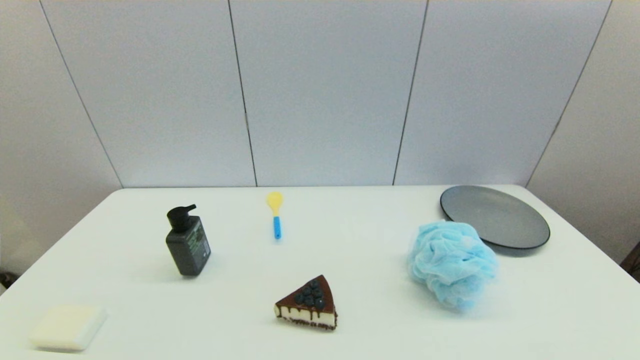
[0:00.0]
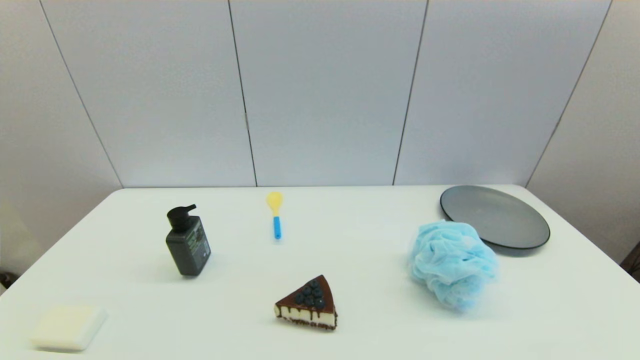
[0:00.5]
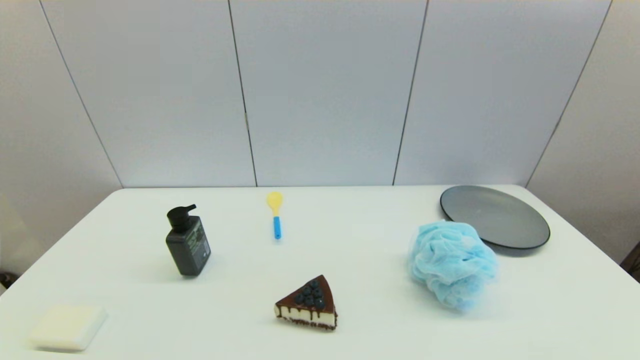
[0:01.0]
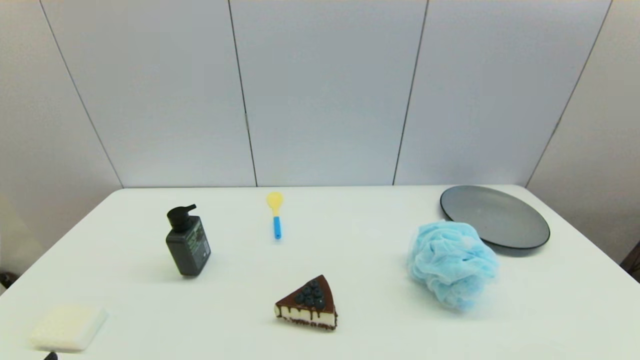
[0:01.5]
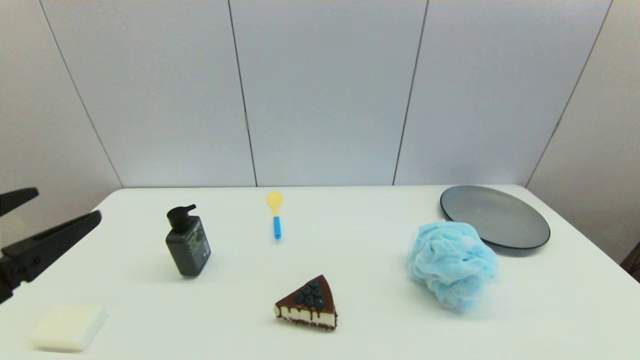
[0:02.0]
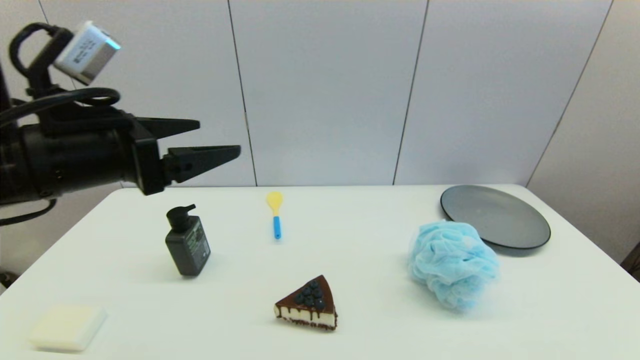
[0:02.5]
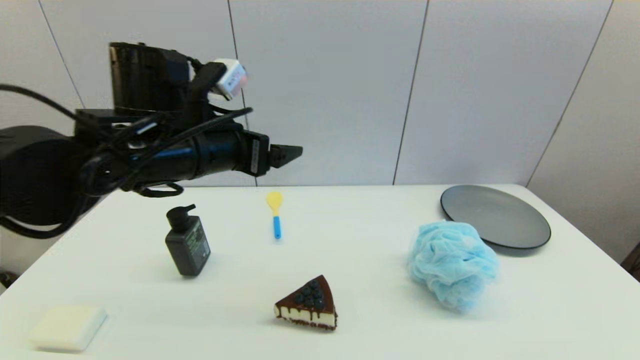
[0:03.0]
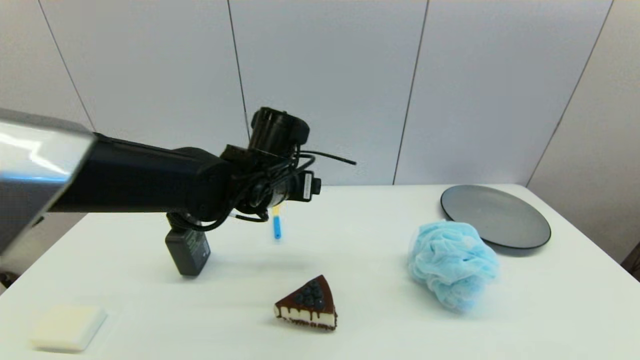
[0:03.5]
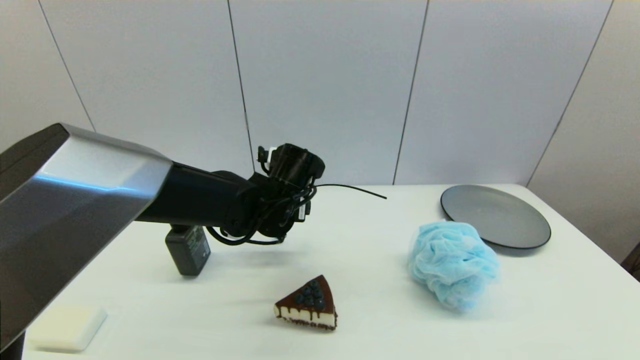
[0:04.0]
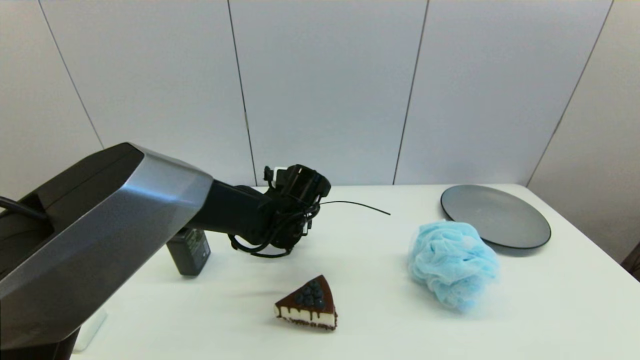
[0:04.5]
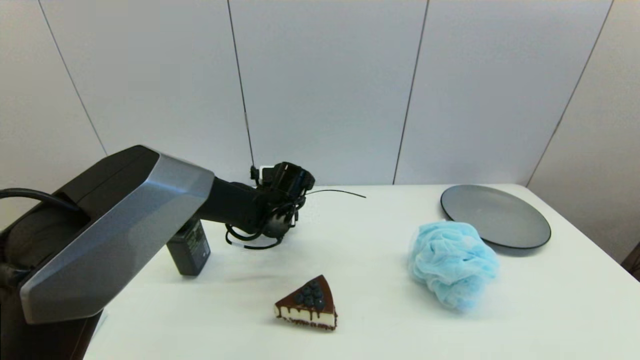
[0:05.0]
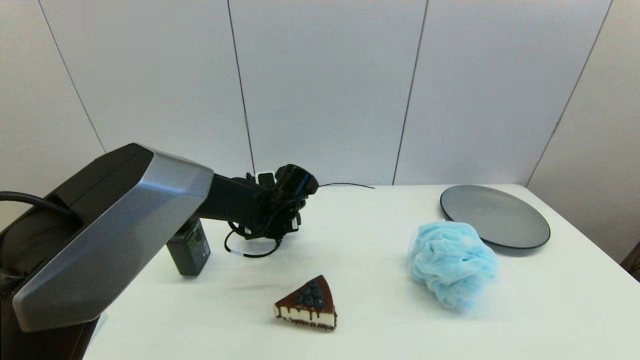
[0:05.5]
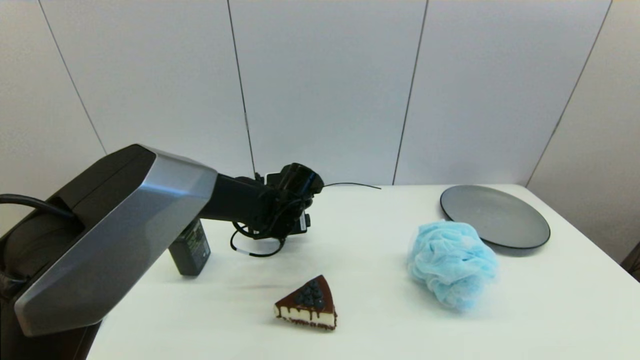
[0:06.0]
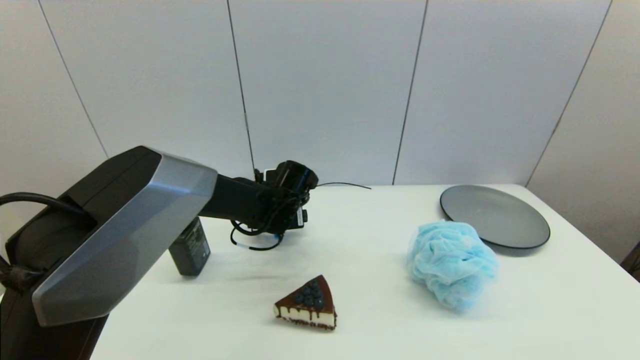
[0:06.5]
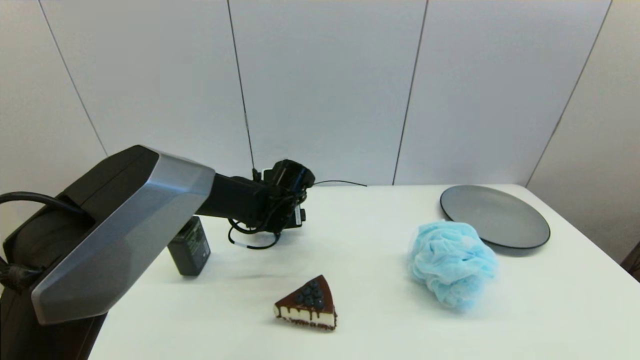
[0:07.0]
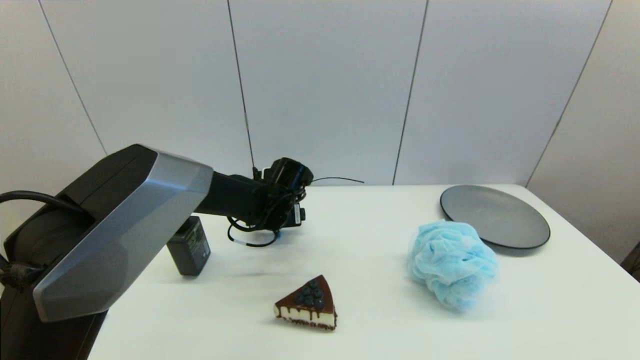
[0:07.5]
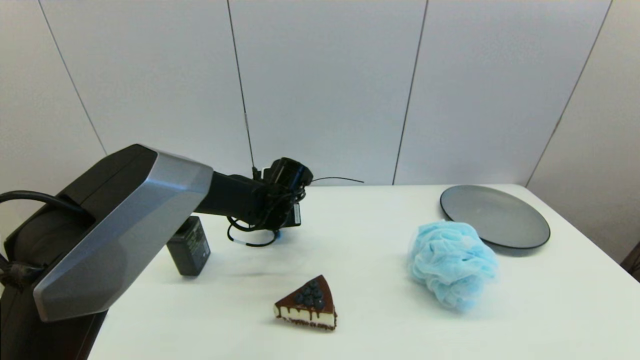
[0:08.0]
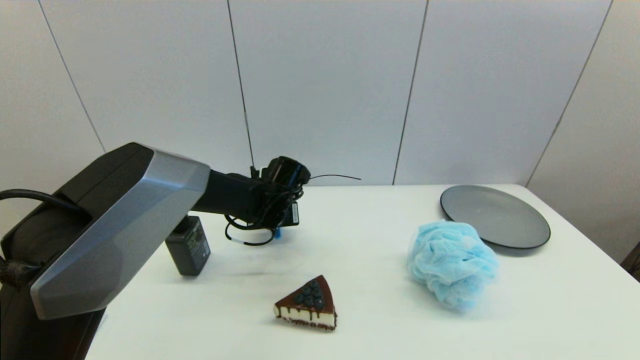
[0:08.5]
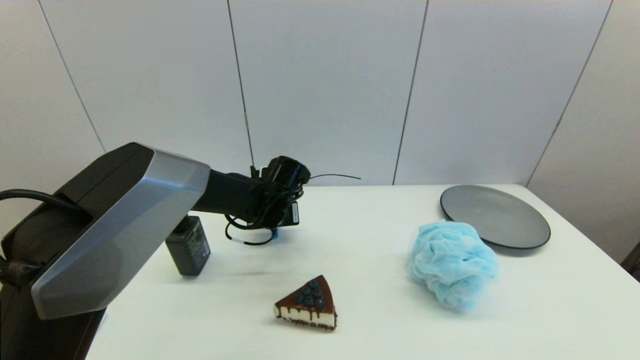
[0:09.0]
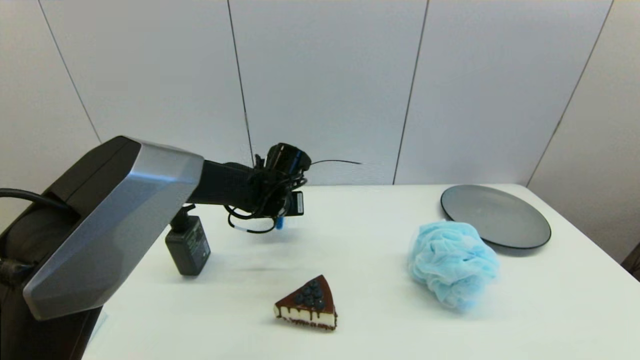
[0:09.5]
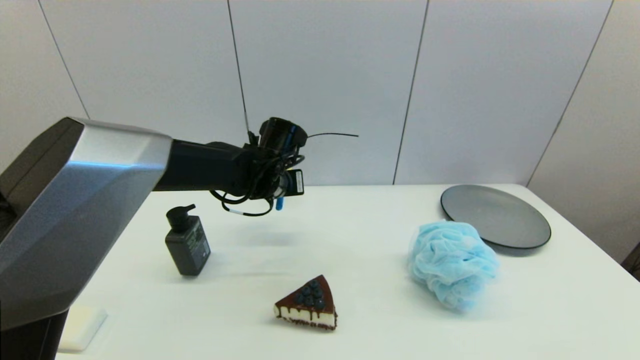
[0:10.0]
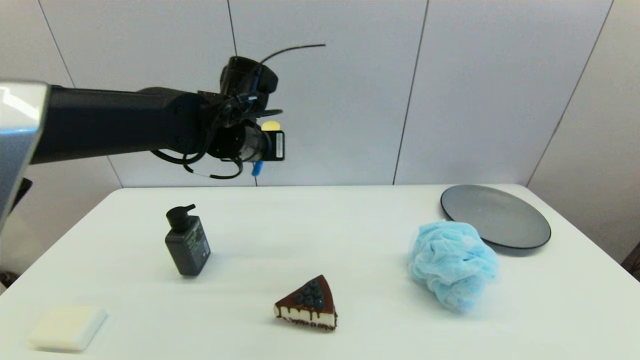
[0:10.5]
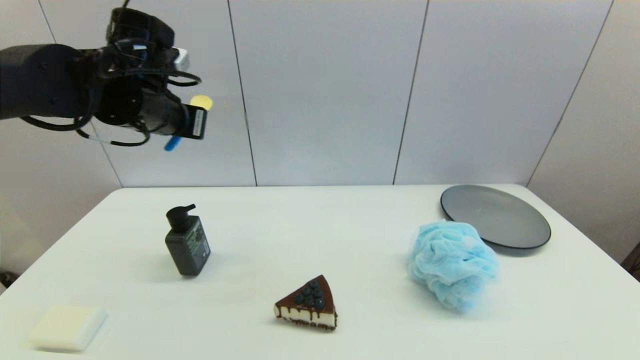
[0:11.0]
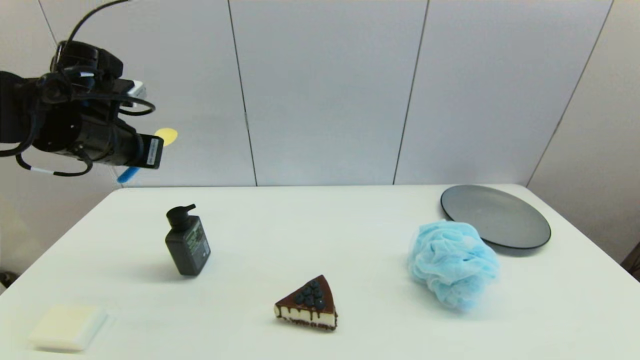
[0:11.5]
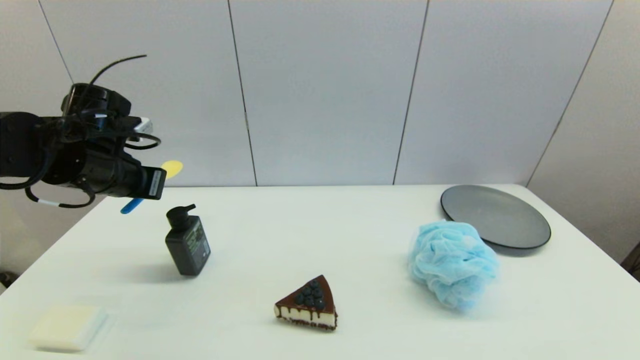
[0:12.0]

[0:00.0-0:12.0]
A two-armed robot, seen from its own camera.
Step, 0:01.5 to 0:08.5: Grasp the spoon with left gripper.
0:00.0 to 0:02.0: The left gripper shifts about 20 cm upward and forward.
0:02.0 to 0:04.0: The left gripper is displaced to the right, forward and downward by about 35 cm.
0:04.0 to 0:06.0: The left gripper is displaced downward by roughly 5 cm.
0:06.0 to 0:08.0: The left gripper closes.
0:08.0 to 0:10.0: The left gripper heads upward, covering about 10 cm, and closes.
0:10.0 to 0:12.0: The left gripper moves to the left, roughly 20 cm.

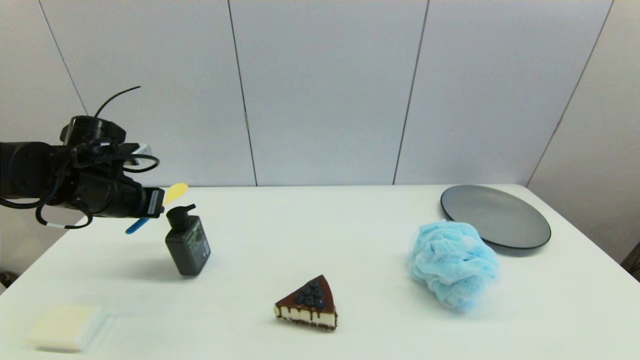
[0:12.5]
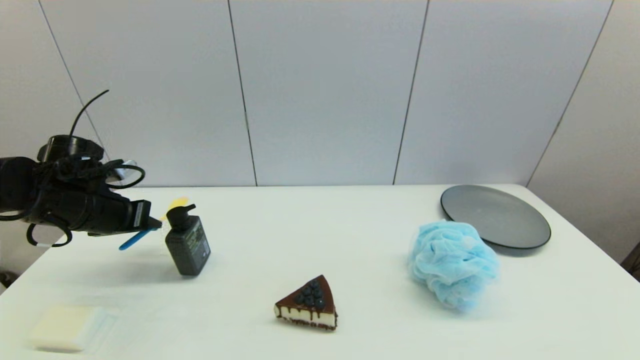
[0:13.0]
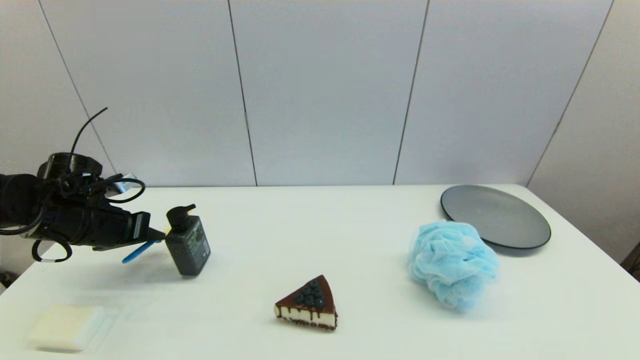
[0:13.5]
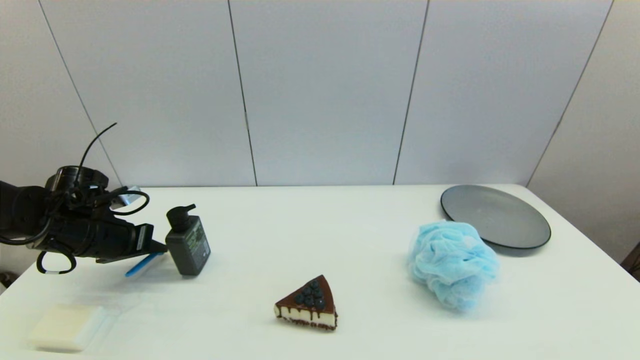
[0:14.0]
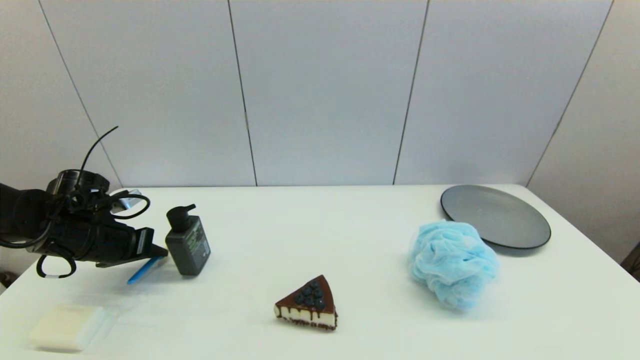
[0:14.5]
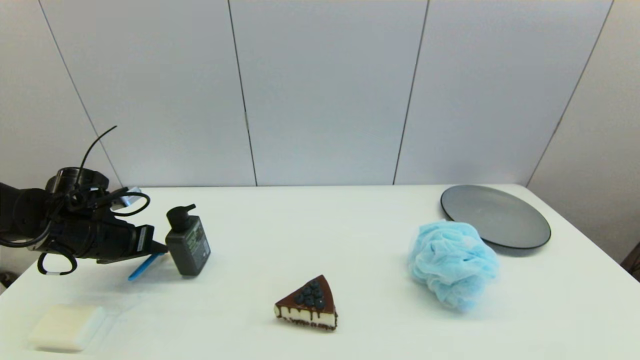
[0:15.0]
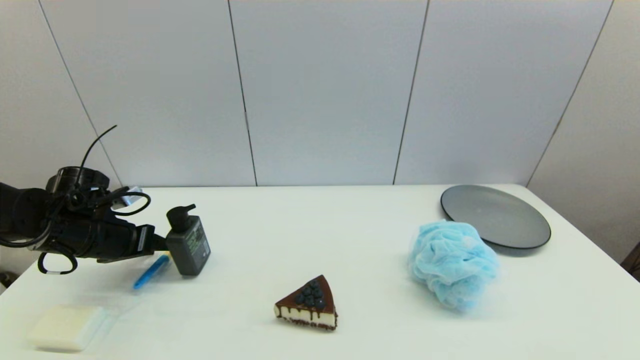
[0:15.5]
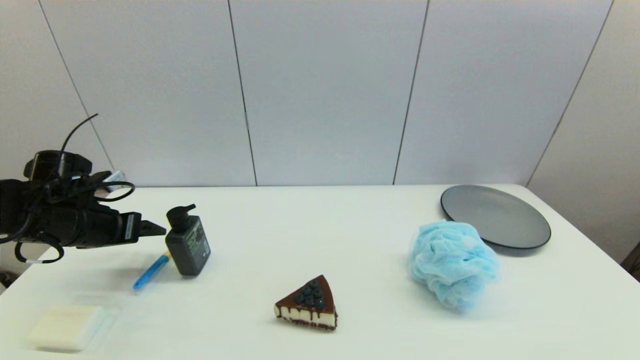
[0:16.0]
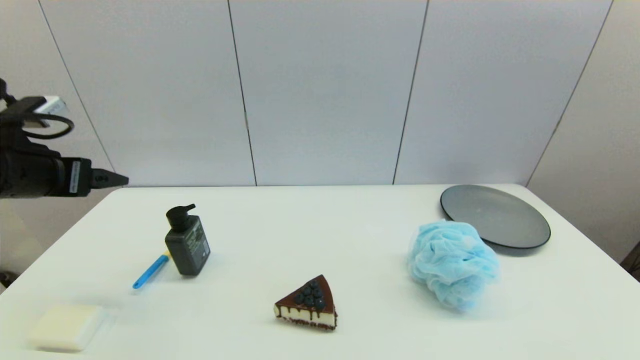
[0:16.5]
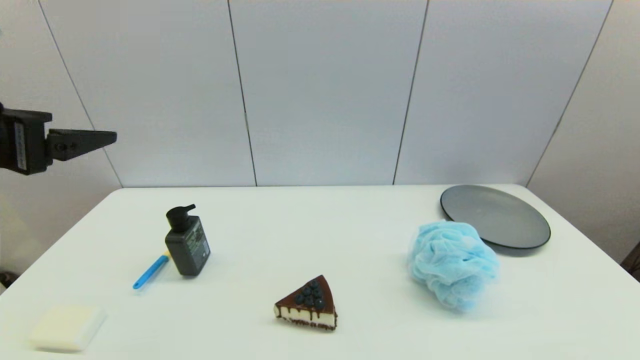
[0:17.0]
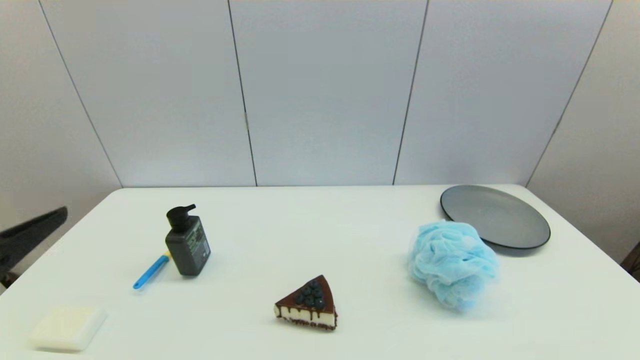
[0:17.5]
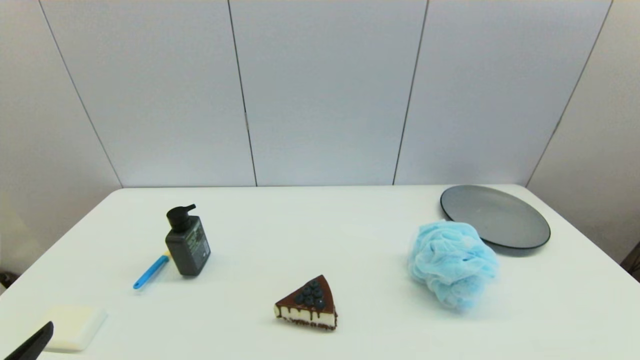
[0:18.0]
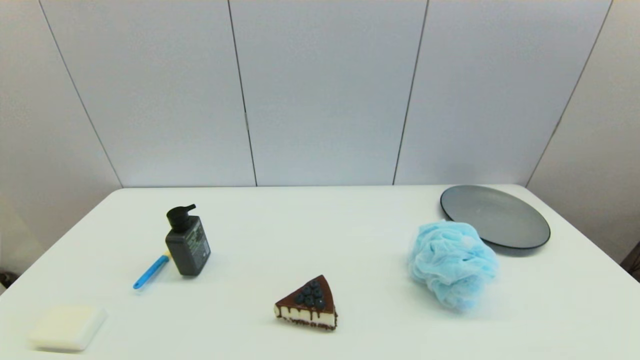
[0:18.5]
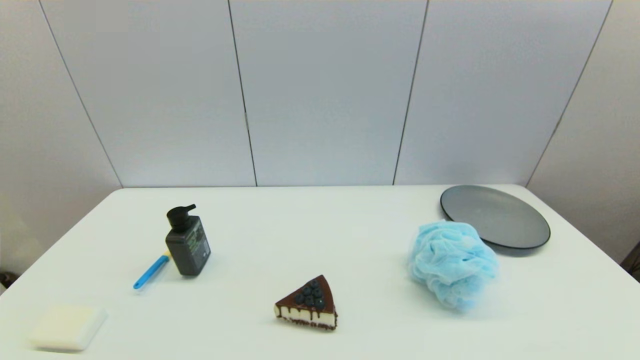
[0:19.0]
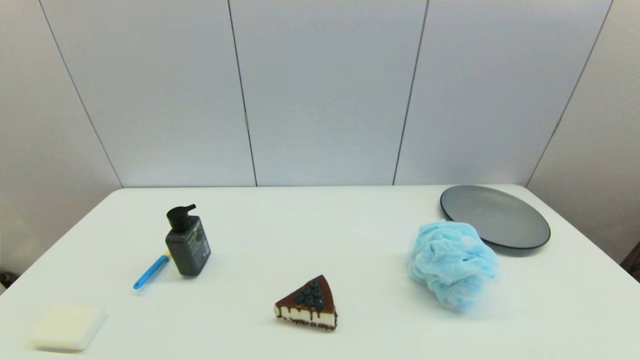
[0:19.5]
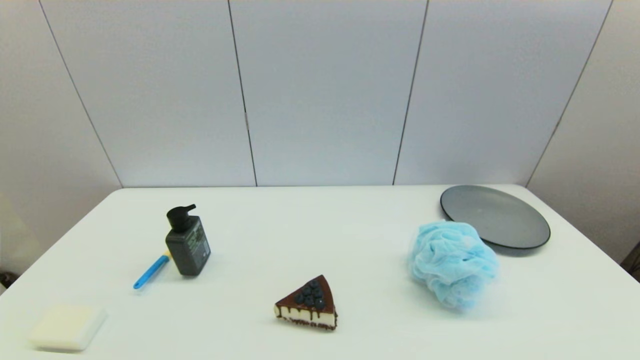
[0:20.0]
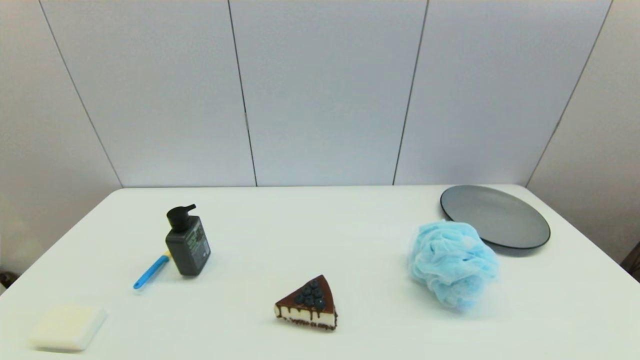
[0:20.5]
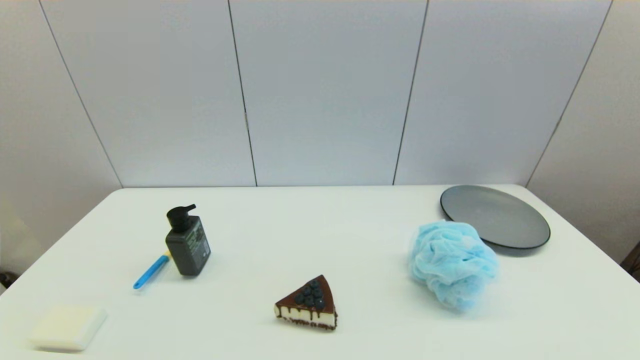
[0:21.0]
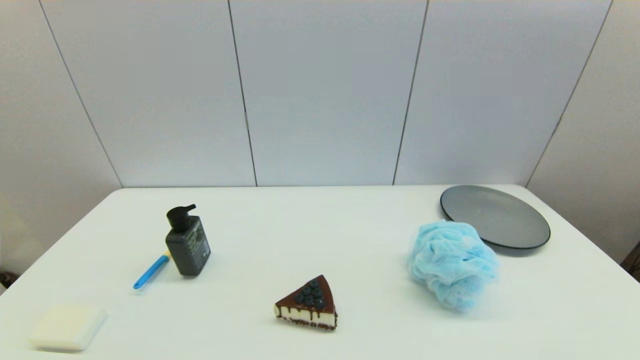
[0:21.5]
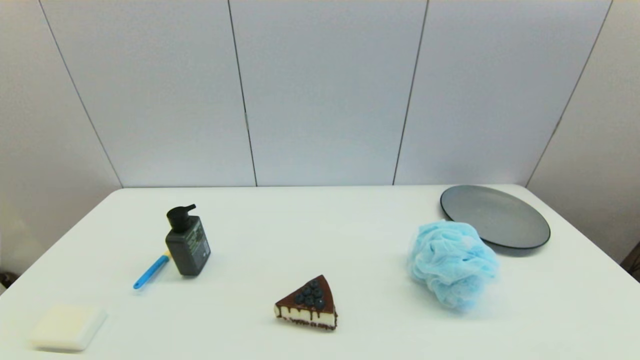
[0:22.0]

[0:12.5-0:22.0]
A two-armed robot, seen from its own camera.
Step, 0:12.5 to 0:15.5: Place the spoon on the table with left gripper.
0:12.5 to 0:14.5: The left gripper shifts about 5 cm downward.
0:14.5 to 0:16.5: The left gripper heads upward, covering roughly 15 cm, and opens its fingers.
0:16.5 to 0:18.0: The left gripper is displaced backward and downward by about 25 cm.
0:20.0 to 0:22.0: Both grippers stay about where they are.
